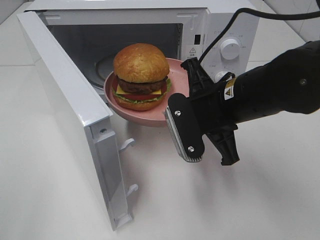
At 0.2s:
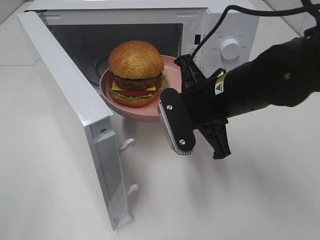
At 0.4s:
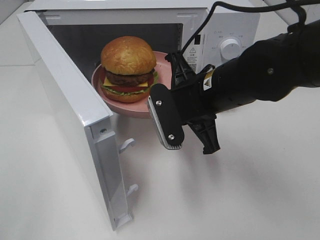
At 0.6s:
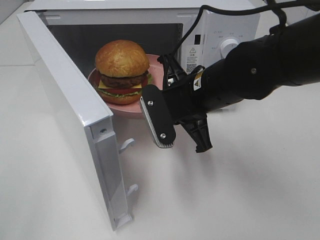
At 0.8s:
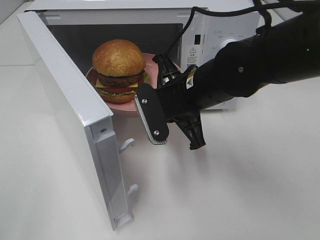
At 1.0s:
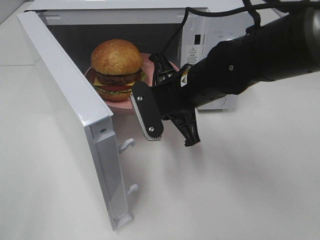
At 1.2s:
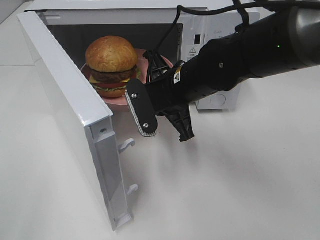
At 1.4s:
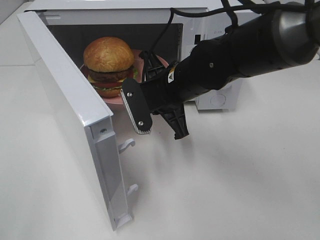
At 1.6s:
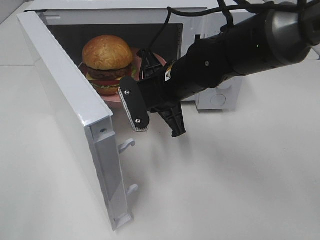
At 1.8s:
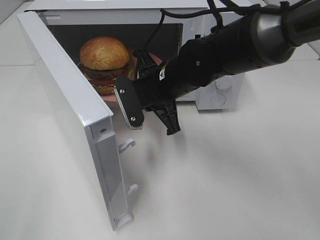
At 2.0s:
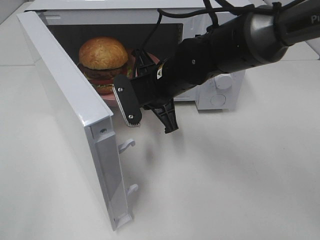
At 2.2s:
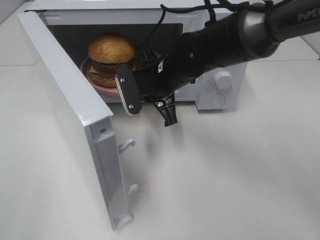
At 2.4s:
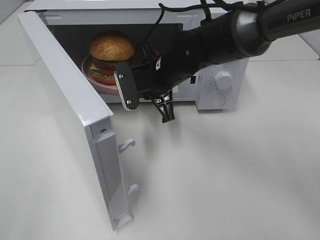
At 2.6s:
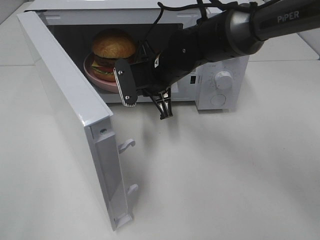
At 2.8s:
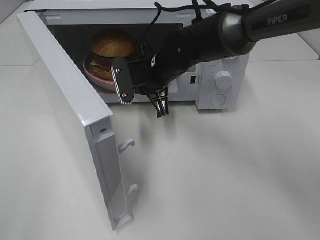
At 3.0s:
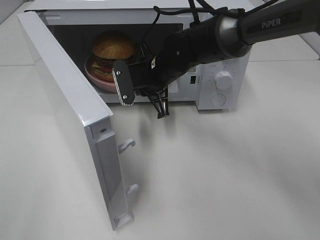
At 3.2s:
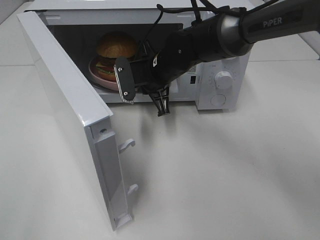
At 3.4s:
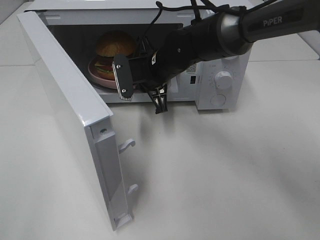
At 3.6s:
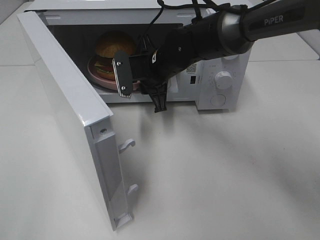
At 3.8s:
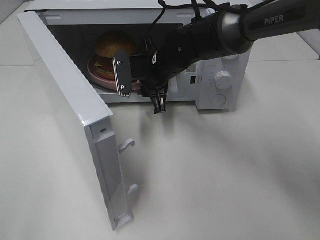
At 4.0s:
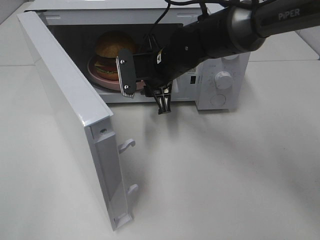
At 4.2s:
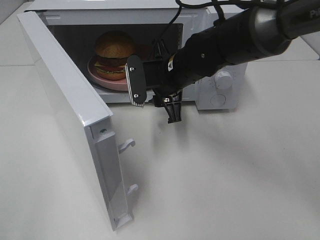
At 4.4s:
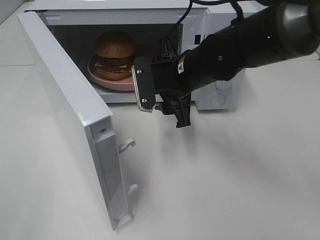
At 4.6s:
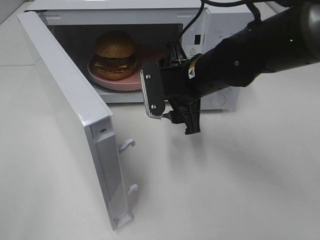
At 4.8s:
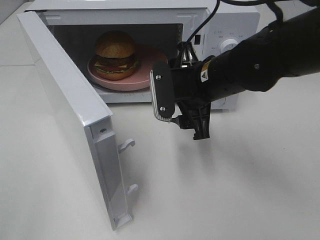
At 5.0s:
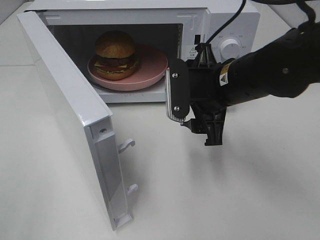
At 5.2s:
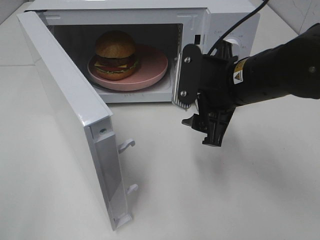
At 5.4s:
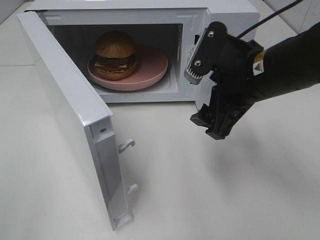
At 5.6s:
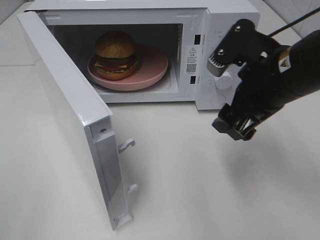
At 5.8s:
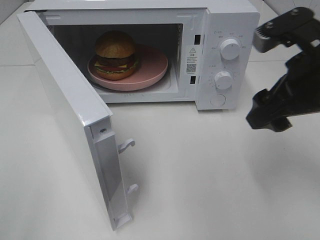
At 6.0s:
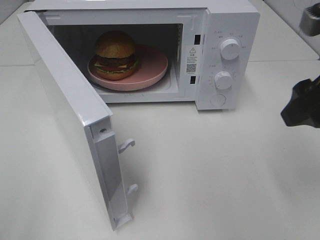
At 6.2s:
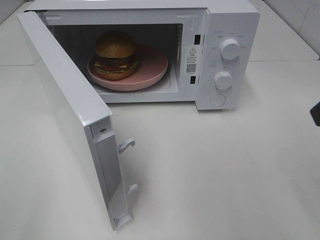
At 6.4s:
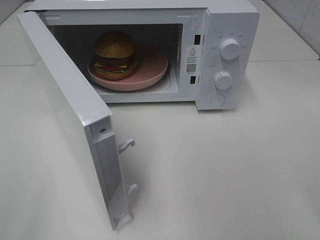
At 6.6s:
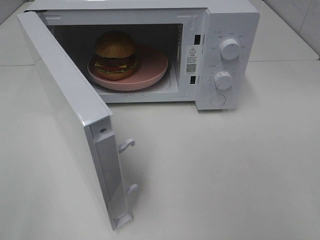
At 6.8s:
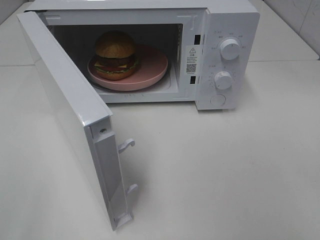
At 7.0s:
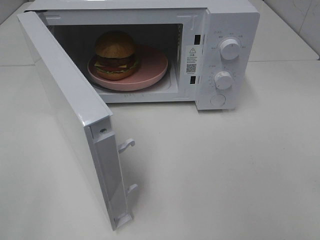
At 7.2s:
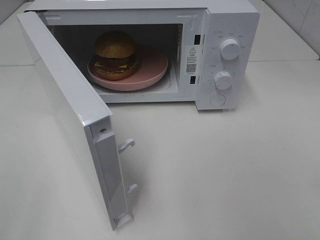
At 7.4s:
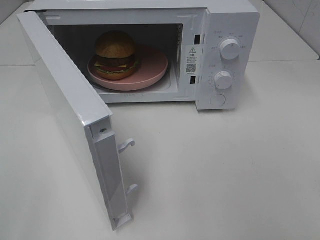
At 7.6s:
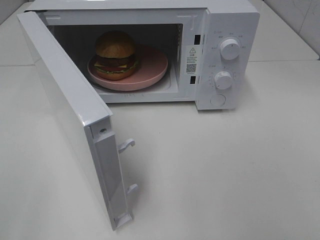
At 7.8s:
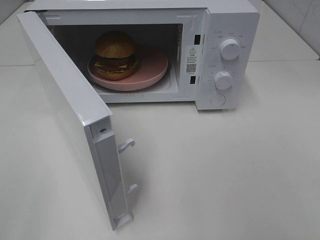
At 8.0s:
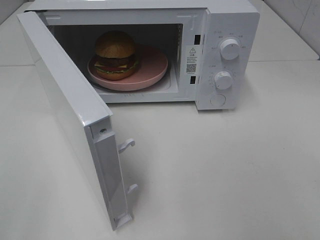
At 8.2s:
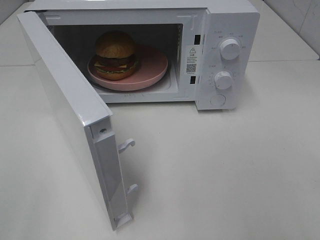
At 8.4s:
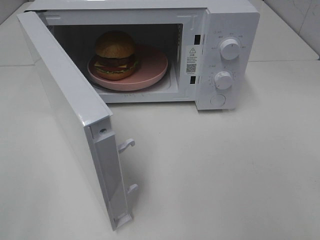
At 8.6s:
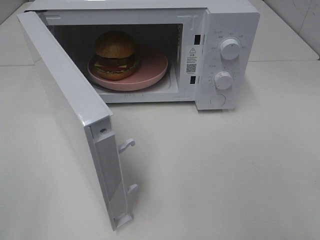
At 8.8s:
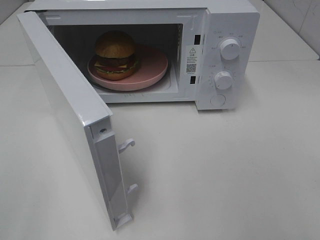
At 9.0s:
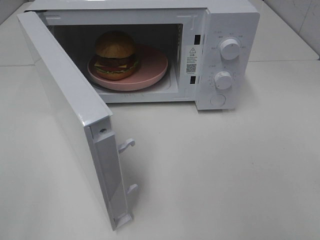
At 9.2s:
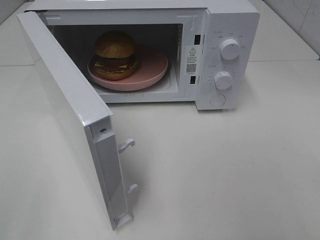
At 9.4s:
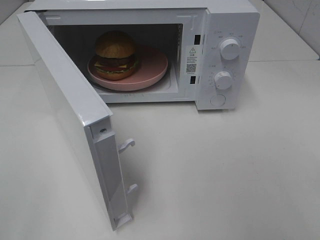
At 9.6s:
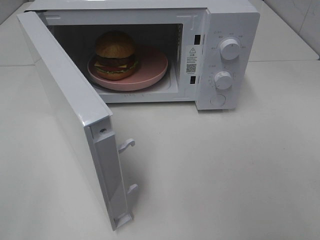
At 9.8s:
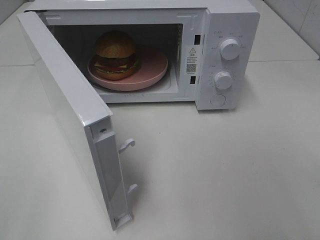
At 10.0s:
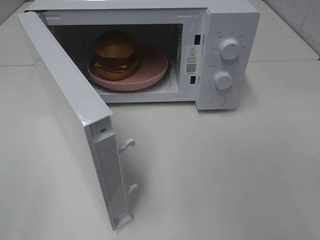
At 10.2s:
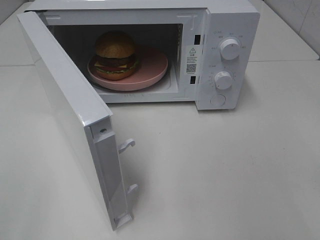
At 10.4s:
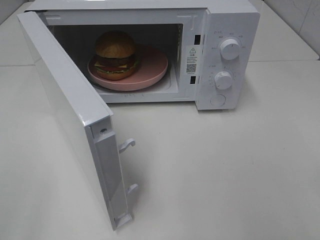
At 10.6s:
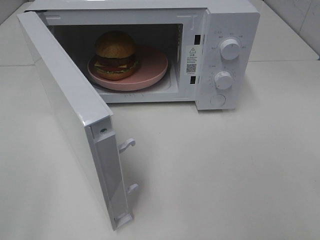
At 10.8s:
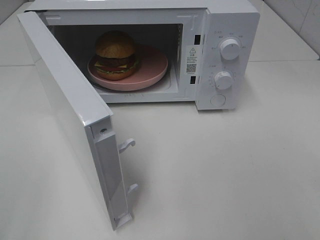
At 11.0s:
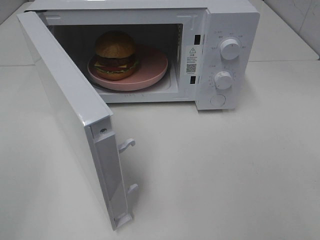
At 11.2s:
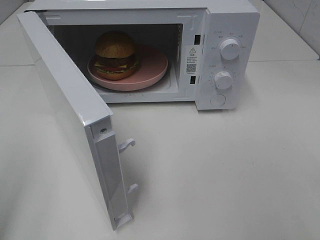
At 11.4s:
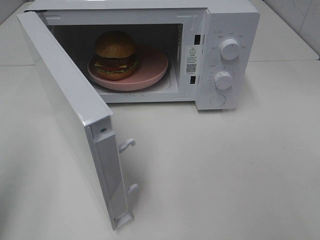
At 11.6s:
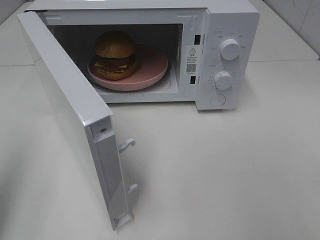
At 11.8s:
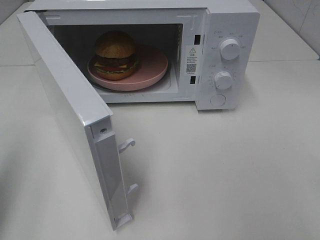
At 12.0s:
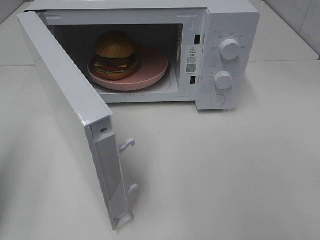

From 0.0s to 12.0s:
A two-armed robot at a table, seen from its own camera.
Task of the whole recording: Heat the burger.
Step, from 0.0s to 3.4s: Right hand: place the plate in the microwave.
From 0.0s to 1.6s: The right gripper is displaced forward and to the left by about 10 cm.
From 1.6s to 3.0s: The right gripper is displaced forward by about 10 cm.
From 3.0s to 4.4s: The right gripper goes some 5 cm backward, and opens.
From 4.4s to 6.0s: The right gripper moves to the right, backward and upward, approximately 25 cm.
From 6.0s to 7.6s: The right gripper is displaced backward by approximately 20 cm.
From 9.0s to 10.4s: Both grippers stay put.
From 10.4s to 12.0s: The left gripper moves forward, about 15 cm, and closes.

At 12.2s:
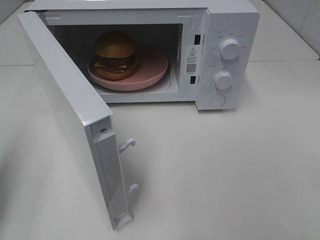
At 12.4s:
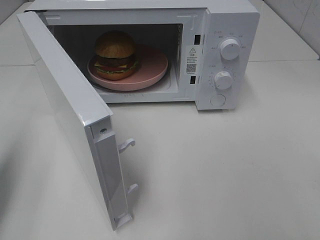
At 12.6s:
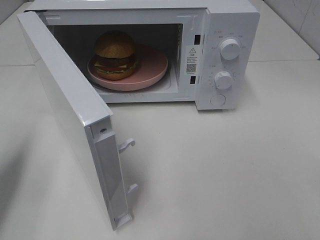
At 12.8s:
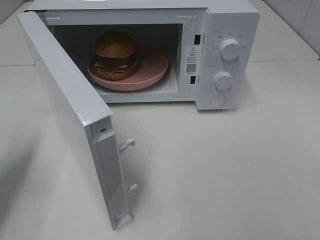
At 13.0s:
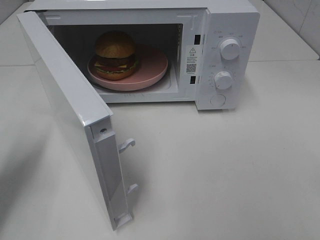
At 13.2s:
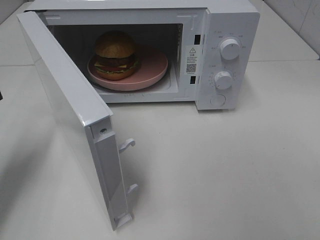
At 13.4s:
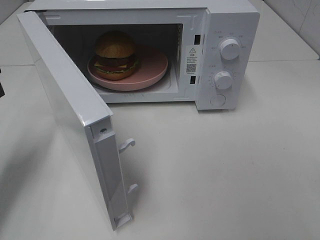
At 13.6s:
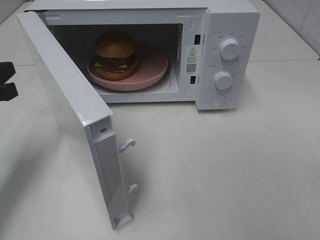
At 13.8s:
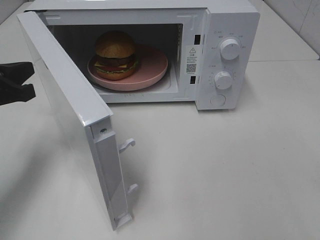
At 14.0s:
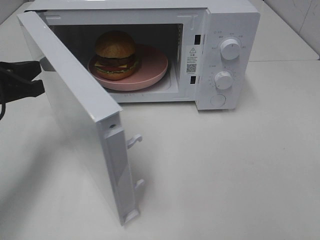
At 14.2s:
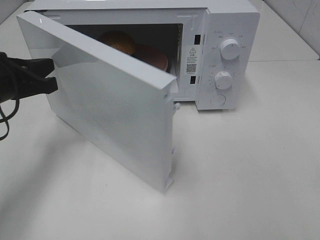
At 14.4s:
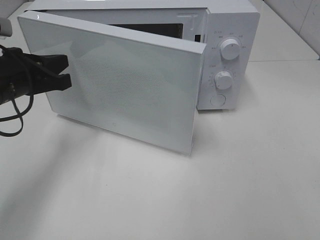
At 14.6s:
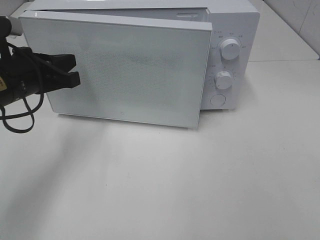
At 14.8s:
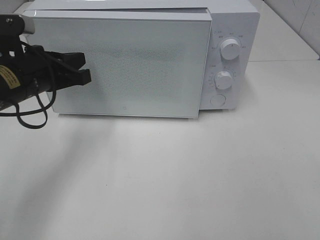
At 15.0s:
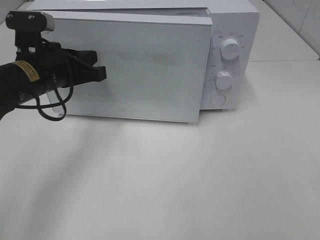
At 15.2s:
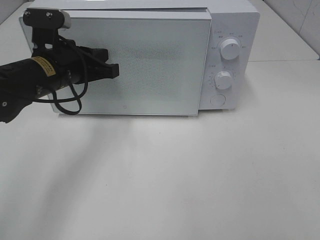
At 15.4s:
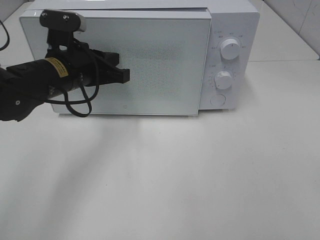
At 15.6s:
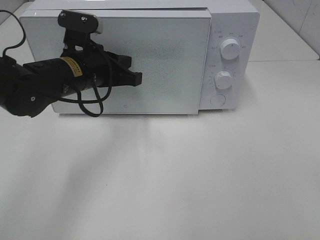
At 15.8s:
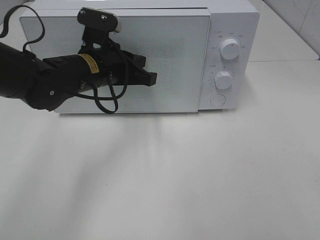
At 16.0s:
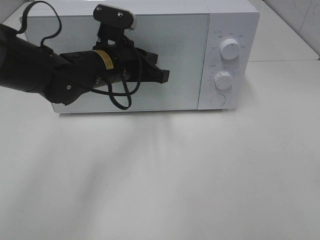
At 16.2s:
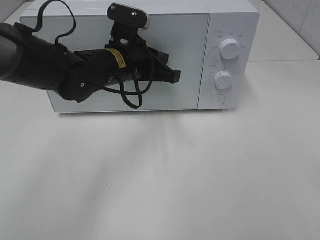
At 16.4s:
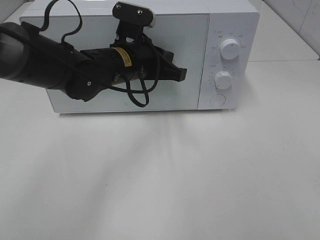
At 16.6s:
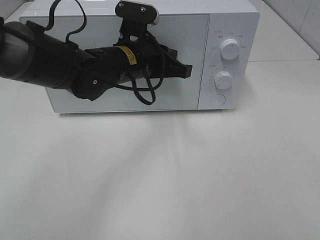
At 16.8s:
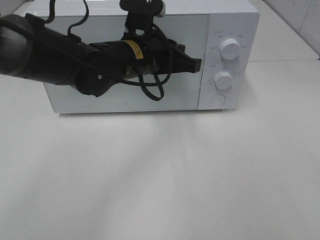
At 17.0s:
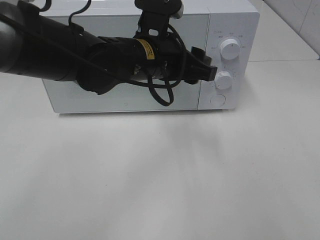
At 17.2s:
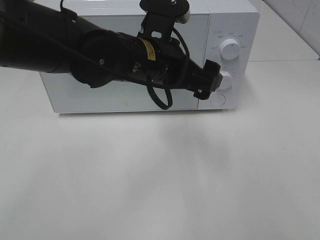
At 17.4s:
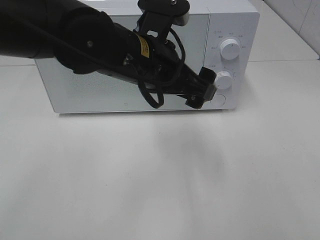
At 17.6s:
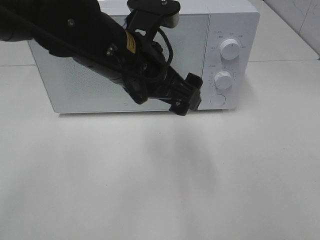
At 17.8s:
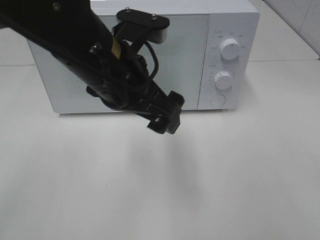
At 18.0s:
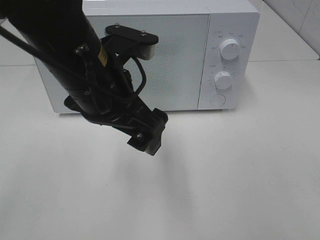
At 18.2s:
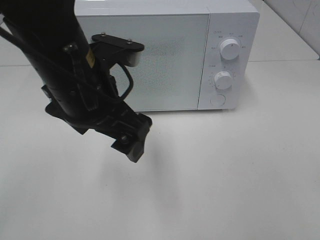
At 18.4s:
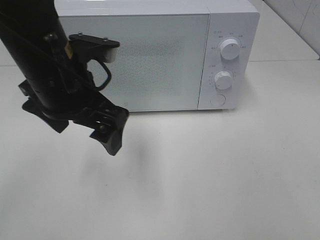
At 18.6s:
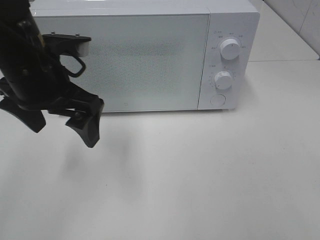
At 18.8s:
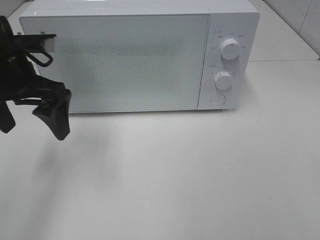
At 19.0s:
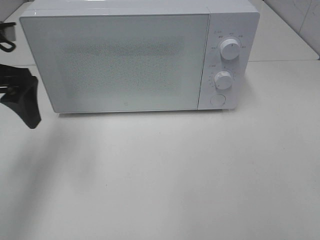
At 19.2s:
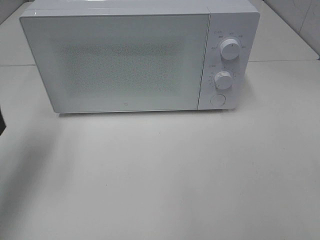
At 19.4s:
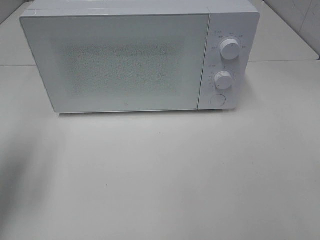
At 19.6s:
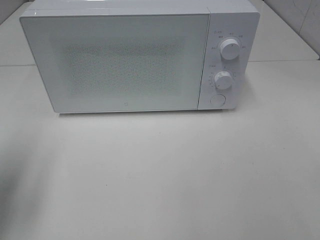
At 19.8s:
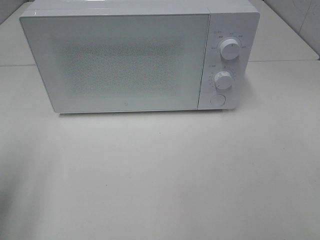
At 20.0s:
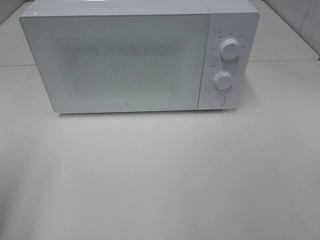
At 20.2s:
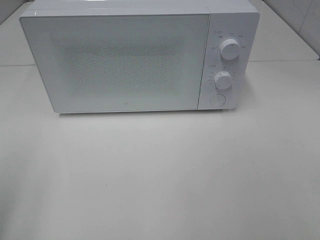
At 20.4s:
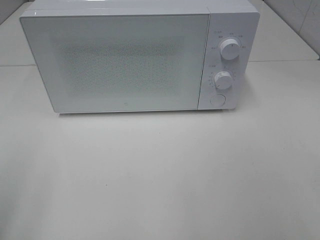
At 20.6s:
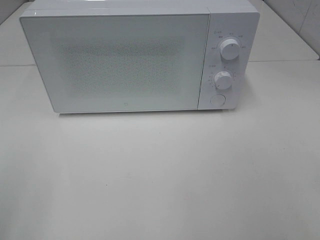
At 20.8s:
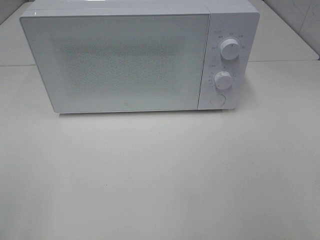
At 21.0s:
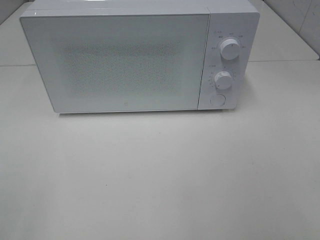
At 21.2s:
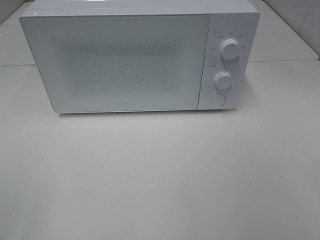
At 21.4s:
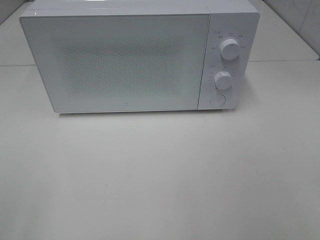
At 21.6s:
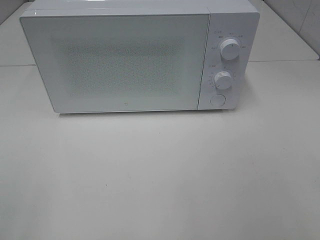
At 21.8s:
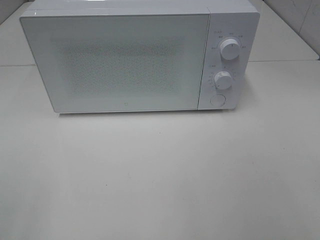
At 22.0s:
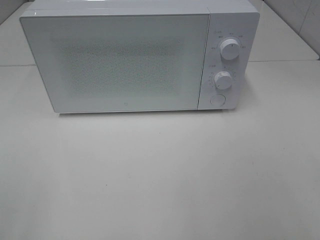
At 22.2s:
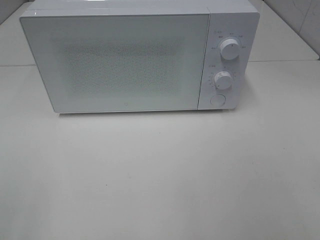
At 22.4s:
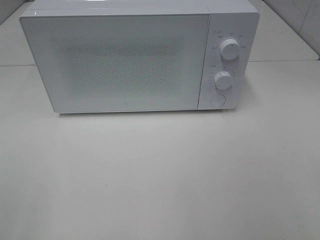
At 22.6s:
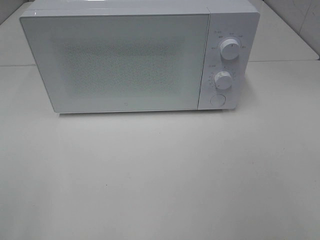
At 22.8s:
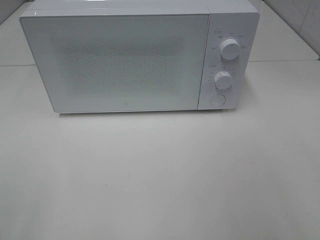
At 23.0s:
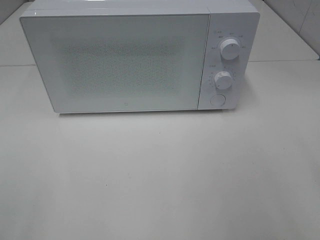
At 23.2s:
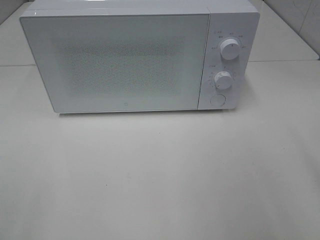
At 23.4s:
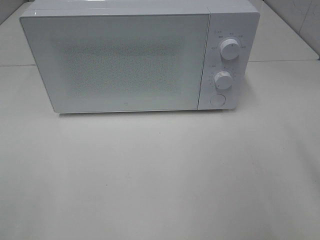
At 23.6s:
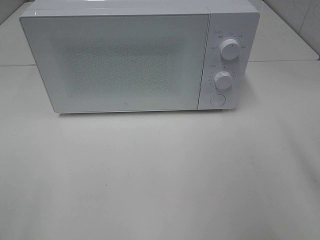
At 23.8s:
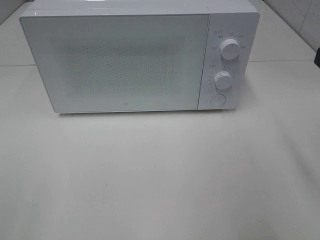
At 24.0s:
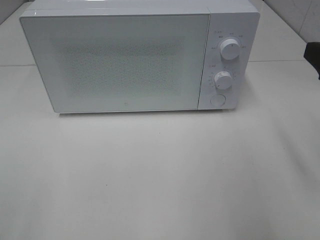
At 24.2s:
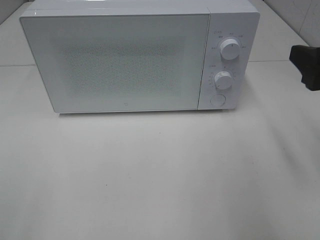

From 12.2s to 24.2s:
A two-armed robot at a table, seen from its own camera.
Task of the whole recording: Heat the burger.
Step, from 12.2s to 16.4s: Left hand: close the microwave door.
From 12.2s to 13.8s: The left gripper goes roughly 15 cm forward, to the right and downward.
From 13.8s to 15.2s: The left gripper heads to the right and forward, covering roughly 15 cm.
From 15.2s to 16.6s: The left gripper travels to the right by some 10 cm.
From 16.6s to 18.2s: The left gripper is displaced backward and upward by some 15 cm, and opens up.
From 18.2s to 19.8s: The left gripper moves to the left, roughly 25 cm.
From 19.8s to 21.2s: The left gripper goes approximately 15 cm backward.
From 22.6s to 24.2s: The right gripper travels forward by approximately 15 cm.
